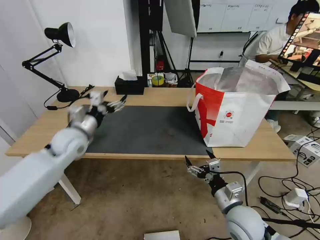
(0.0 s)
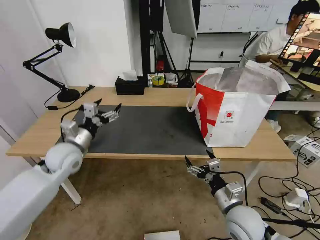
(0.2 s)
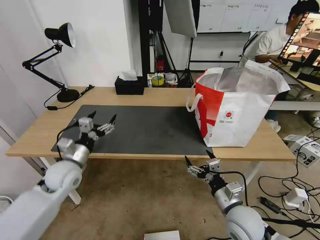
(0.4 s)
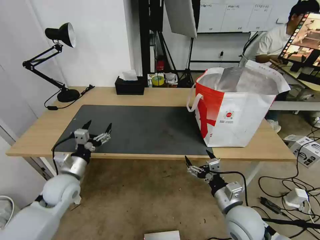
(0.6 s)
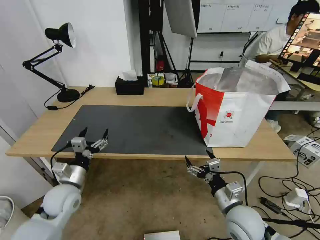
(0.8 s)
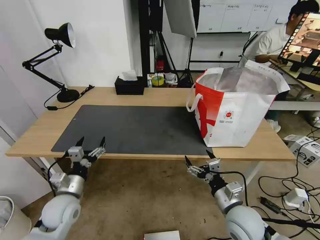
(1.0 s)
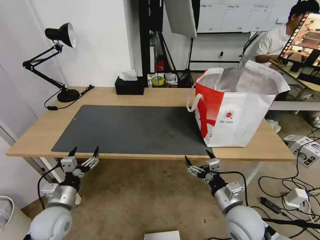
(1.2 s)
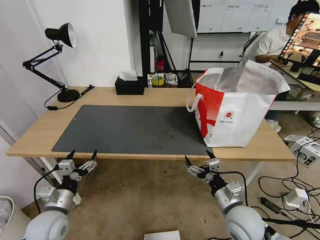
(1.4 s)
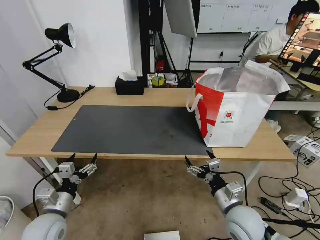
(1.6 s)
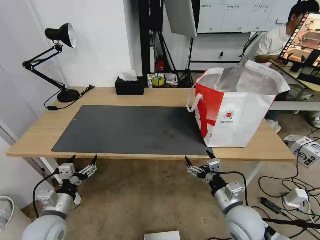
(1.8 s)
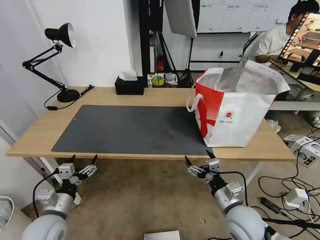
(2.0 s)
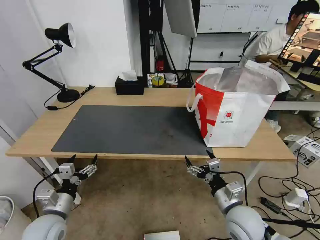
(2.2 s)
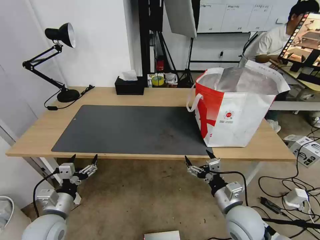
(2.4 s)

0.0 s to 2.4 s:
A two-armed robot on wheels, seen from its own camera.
Task of the whole recording: Pick up the trash from the table and place it into the takeout bag.
0.0 to 1.2 s: The left gripper shifts some 25 cm backward and downward.
1.2 to 2.4 s: The grippers make only small movements.

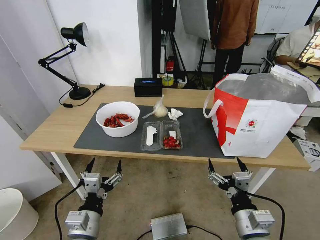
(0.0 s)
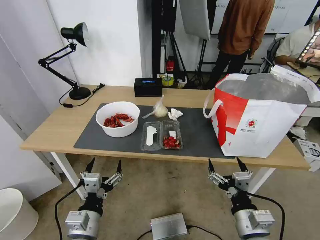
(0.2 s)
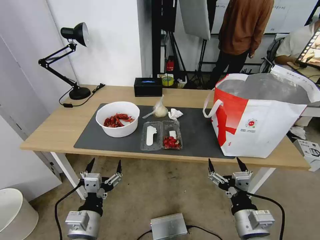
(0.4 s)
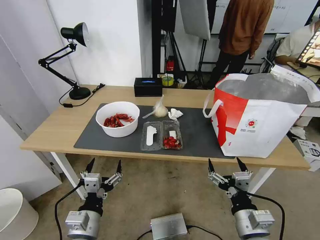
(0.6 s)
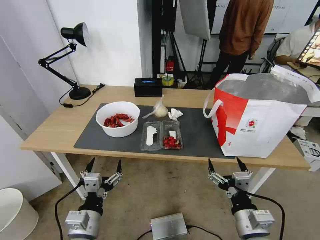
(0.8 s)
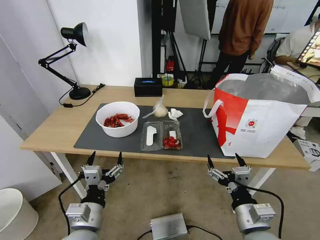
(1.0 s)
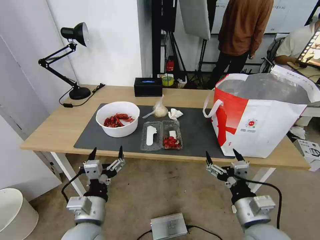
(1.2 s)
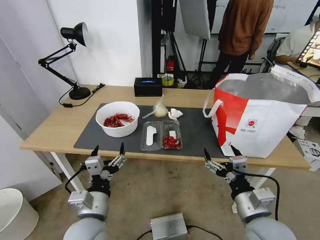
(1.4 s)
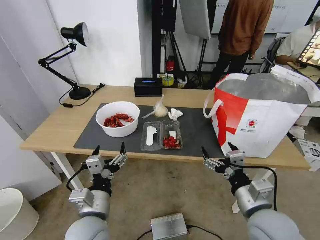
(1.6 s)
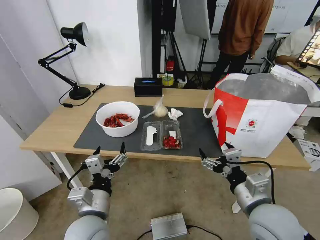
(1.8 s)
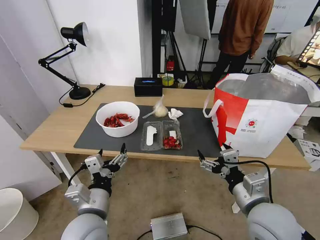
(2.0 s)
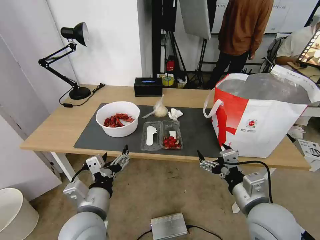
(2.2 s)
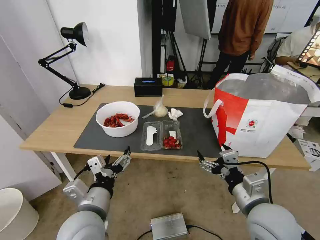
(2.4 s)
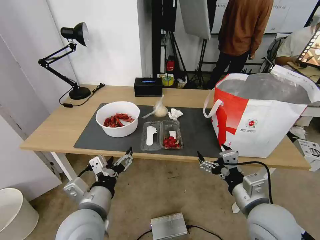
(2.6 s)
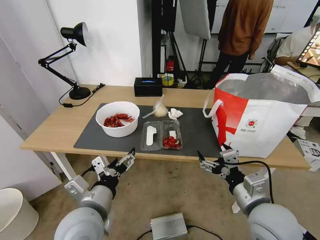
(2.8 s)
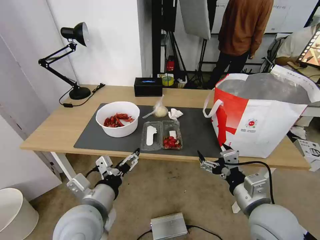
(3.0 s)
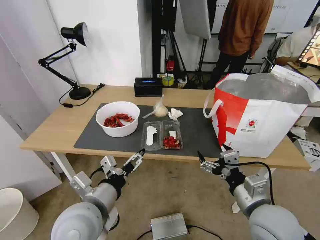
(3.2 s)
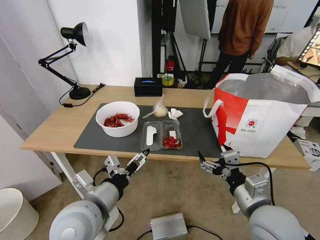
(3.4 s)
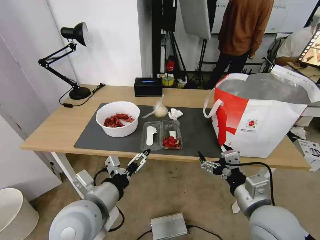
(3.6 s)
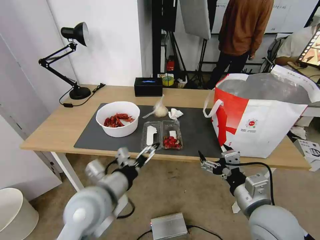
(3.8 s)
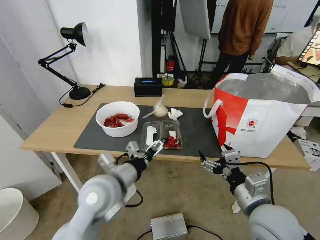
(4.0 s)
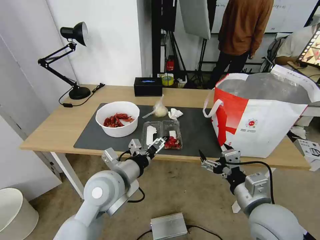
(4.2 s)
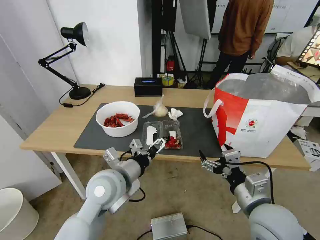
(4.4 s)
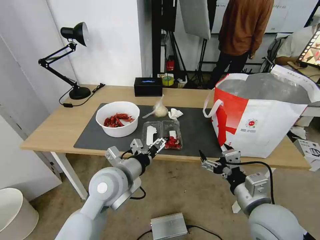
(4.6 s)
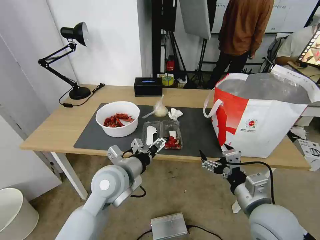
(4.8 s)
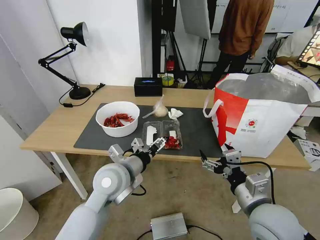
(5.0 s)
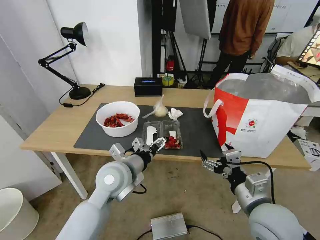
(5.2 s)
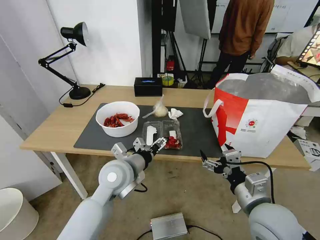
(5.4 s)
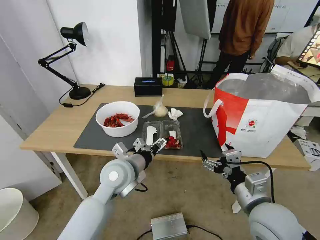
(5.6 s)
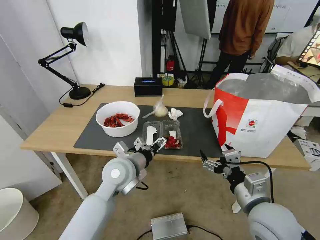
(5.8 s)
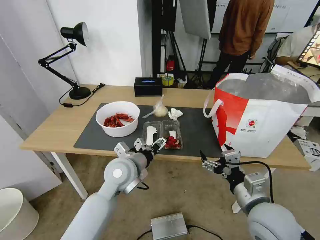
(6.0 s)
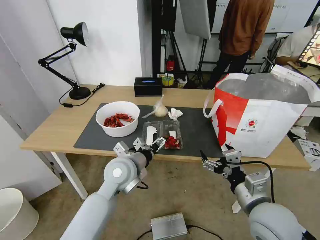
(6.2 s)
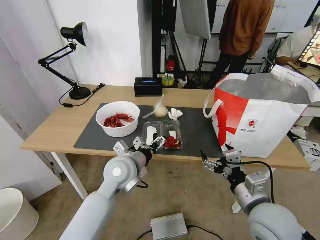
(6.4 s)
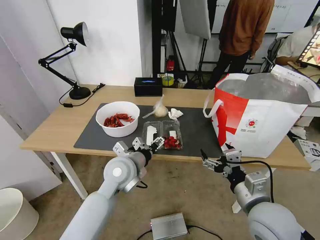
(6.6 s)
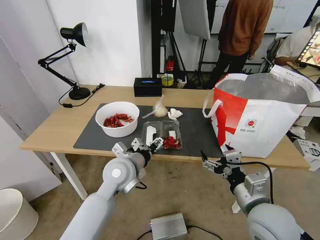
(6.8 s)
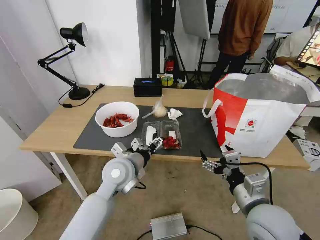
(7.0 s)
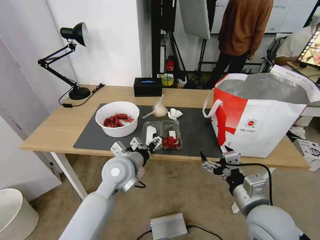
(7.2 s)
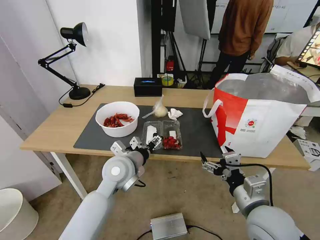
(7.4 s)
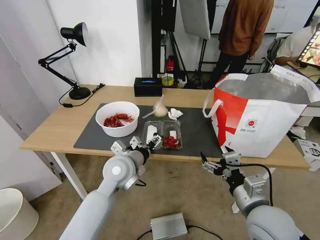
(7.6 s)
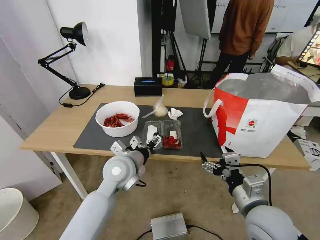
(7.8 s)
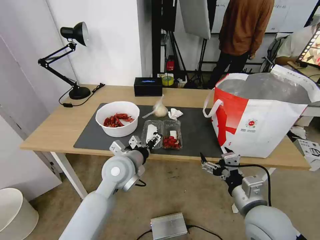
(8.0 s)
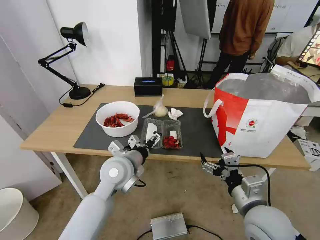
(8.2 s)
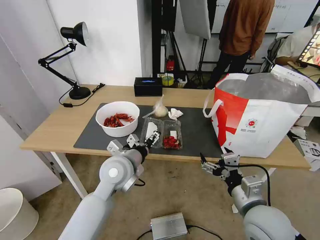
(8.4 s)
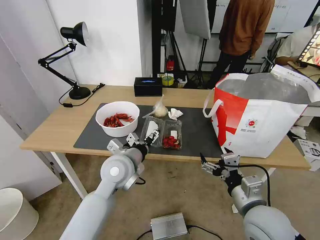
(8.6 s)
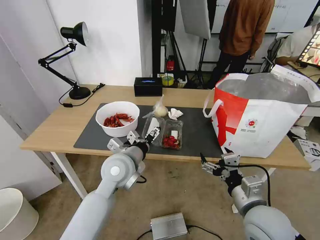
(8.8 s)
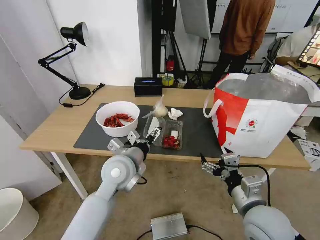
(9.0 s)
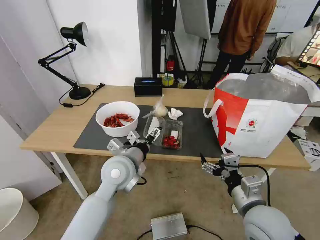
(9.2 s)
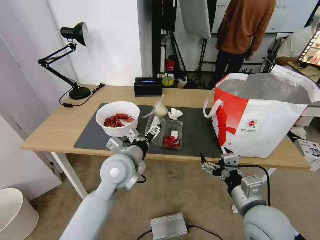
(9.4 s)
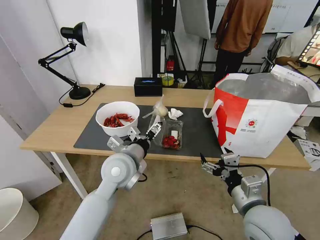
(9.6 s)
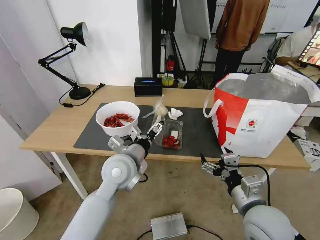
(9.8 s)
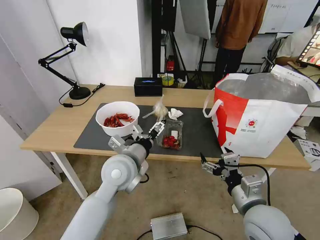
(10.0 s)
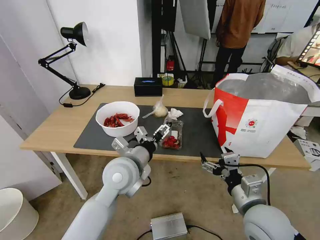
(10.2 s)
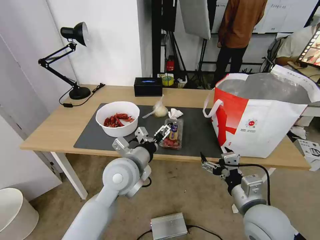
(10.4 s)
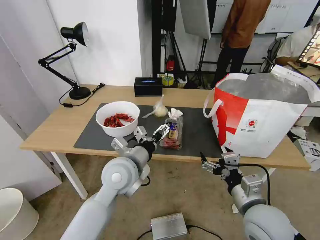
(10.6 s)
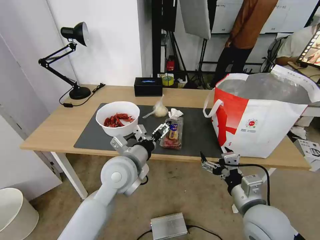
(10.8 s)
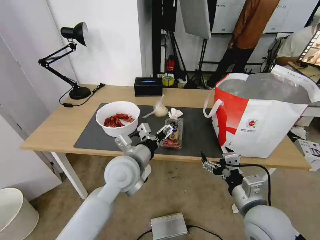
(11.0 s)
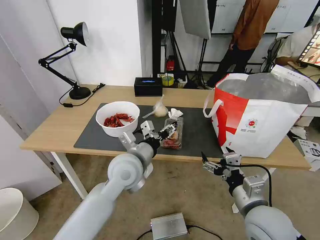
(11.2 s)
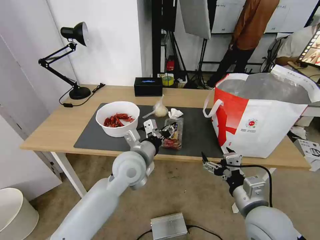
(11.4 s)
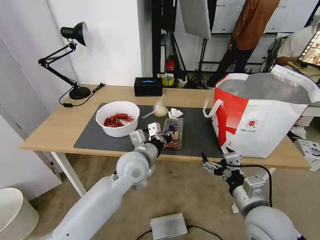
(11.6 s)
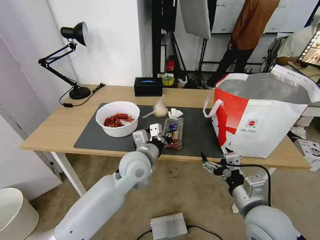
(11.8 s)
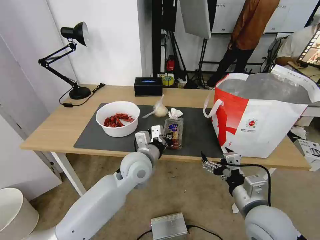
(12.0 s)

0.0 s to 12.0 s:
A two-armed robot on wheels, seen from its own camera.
Task of the whole recording: Pick up the trash from the table and place it into the takeout bag.
1.6 to 3.0 s: The left gripper goes about 5 cm upward.
3.0 to 4.4 s: The left gripper heads forward, covering approximately 10 cm.
4.4 to 6.0 s: The left gripper shifts some 5 cm forward.
6.0 to 7.6 s: Neither gripper changes place.
7.6 to 10.4 s: The grippers make only small movements.
10.4 to 12.0 s: The left gripper changes place by about 5 cm, and closes.

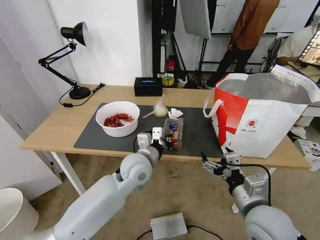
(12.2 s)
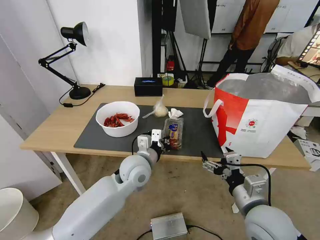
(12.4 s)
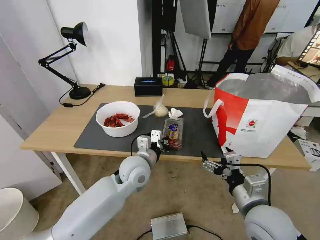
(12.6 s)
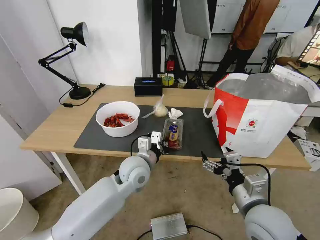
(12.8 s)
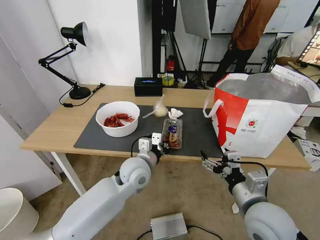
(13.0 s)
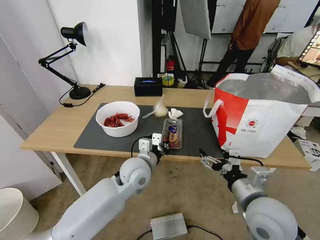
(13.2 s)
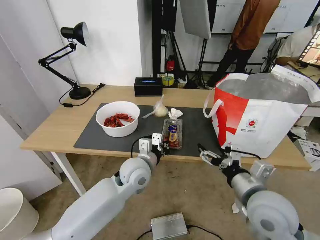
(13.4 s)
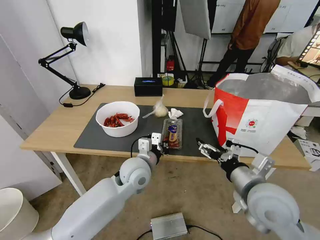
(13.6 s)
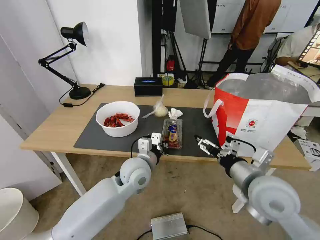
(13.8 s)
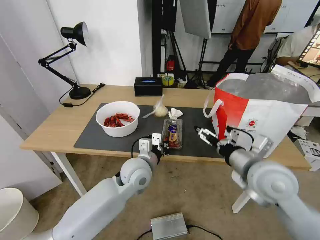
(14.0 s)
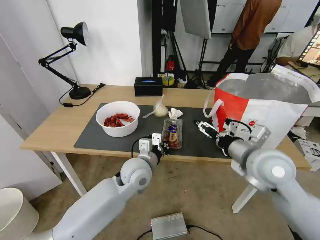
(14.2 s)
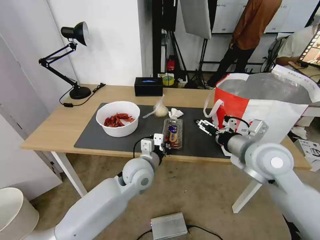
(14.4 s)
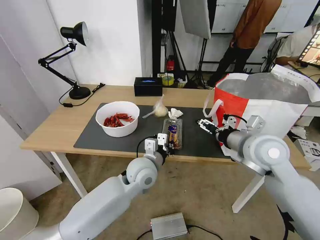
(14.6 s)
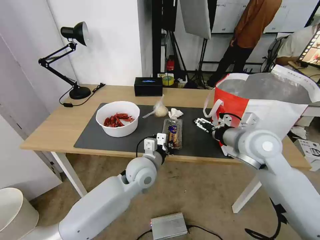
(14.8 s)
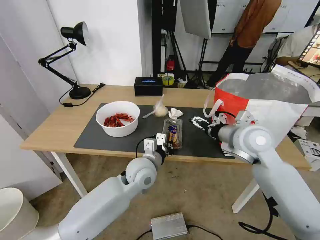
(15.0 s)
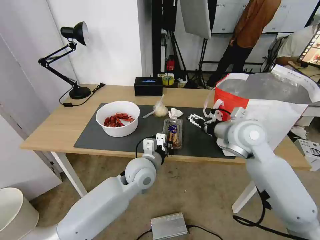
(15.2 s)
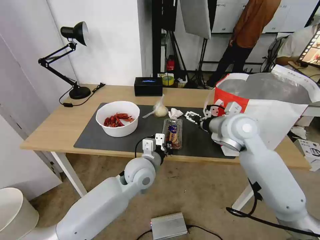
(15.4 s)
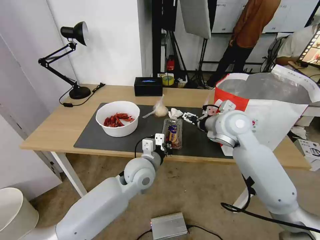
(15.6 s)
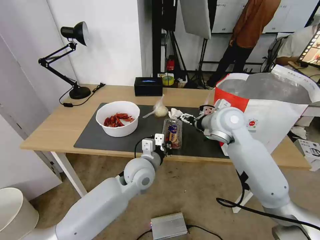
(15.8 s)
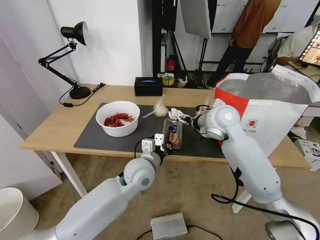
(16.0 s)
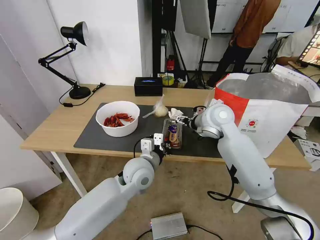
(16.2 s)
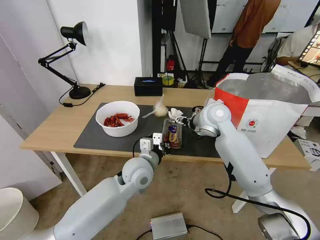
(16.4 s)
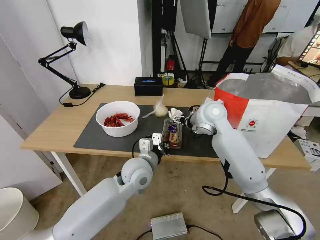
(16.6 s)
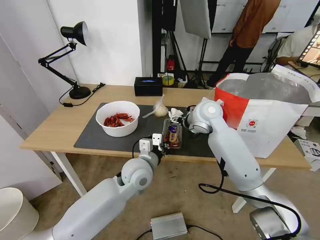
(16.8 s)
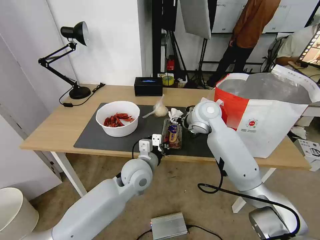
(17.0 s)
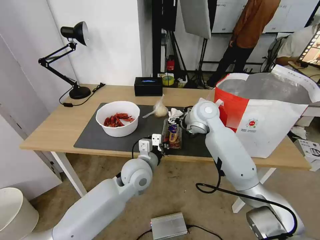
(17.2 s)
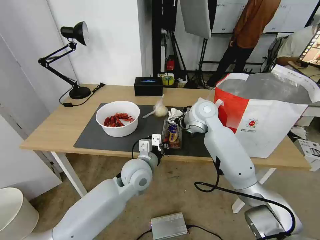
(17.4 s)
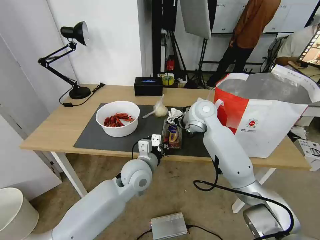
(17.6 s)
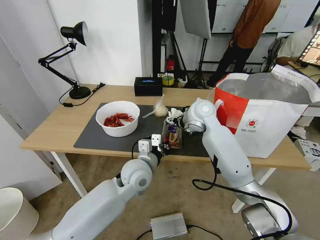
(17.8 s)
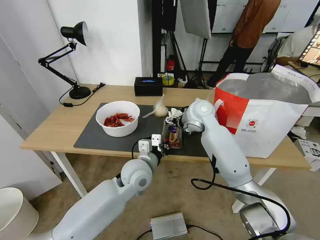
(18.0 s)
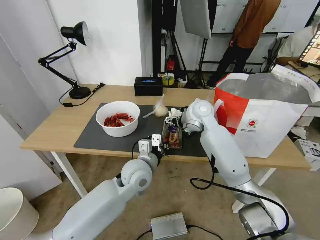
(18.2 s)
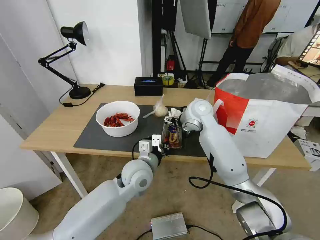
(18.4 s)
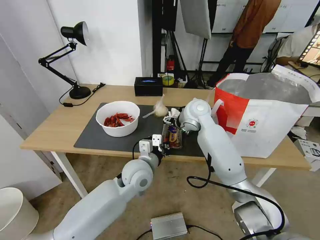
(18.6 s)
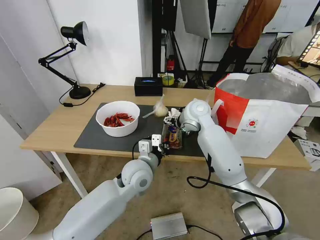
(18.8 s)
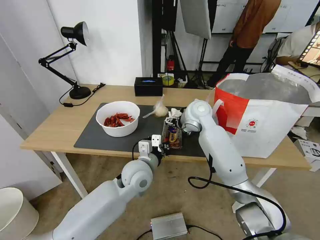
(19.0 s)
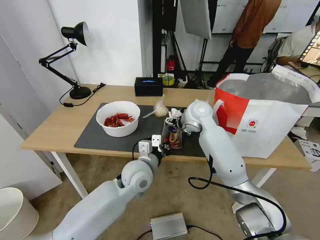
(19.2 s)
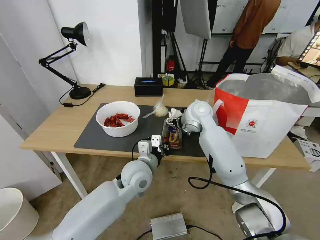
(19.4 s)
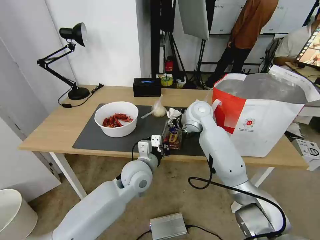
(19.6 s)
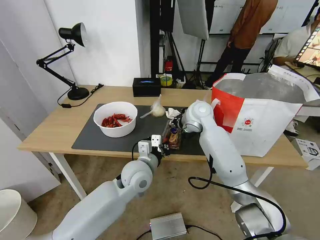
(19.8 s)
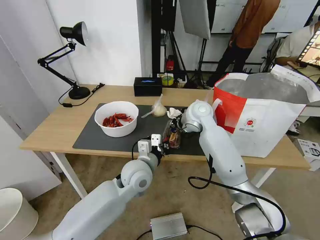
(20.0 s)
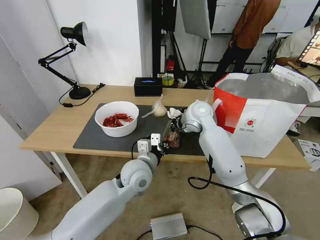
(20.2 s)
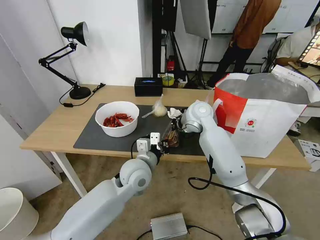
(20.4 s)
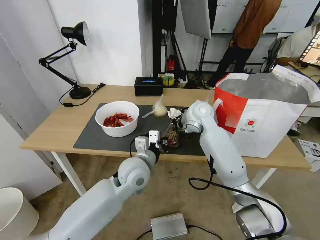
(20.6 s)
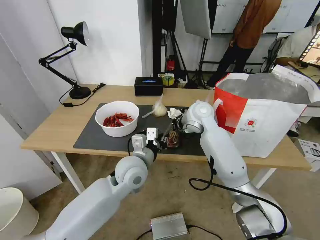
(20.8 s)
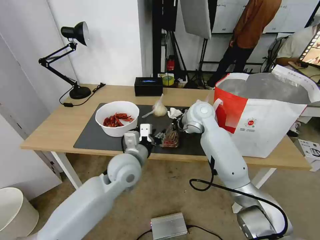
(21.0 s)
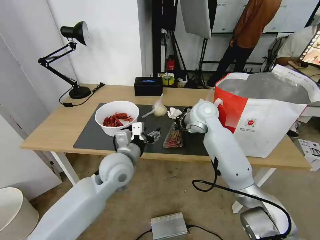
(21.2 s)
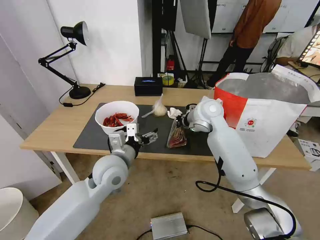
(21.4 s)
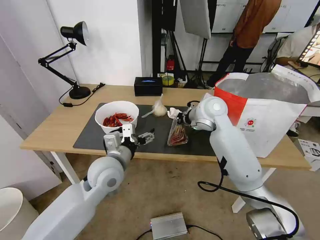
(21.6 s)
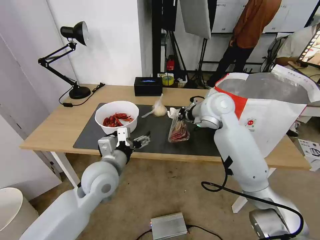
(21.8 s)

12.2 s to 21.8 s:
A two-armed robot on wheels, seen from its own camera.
Task of the whole recording: Pick up the trash from the table and place it into the takeout bag.
12.2 to 13.8 s: The right gripper moves upward and forward, about 10 cm.
13.8 to 15.4 s: The right gripper is displaced forward by some 15 cm.
15.4 to 17.0 s: The right gripper goes some 10 cm forward and to the left.
17.0 to 18.6 s: There are only small adjustments of the grippers.
18.6 to 20.2 s: The right gripper closes its fingers.
20.2 to 21.8 s: The left gripper travels to the left by approximately 10 cm, and opens its fingers. The right gripper travels upward by about 5 cm.
